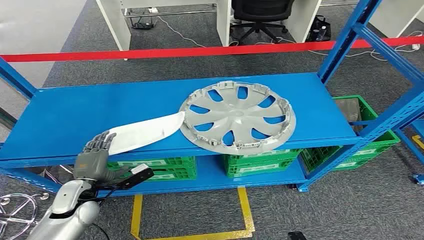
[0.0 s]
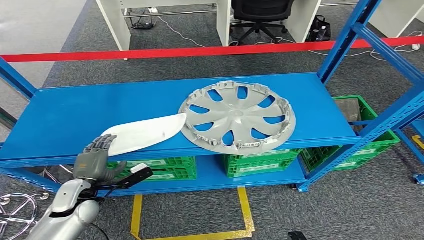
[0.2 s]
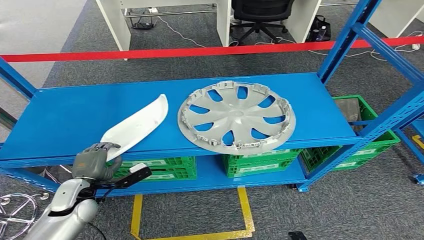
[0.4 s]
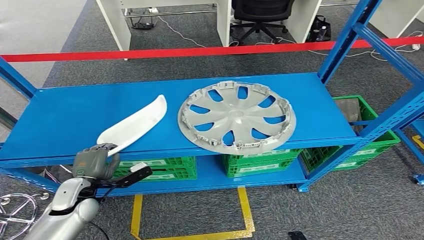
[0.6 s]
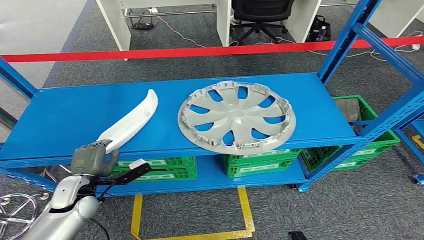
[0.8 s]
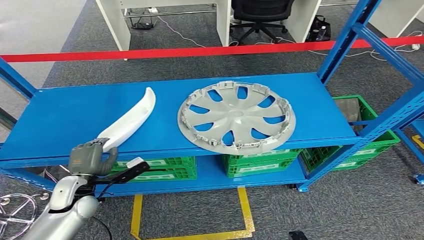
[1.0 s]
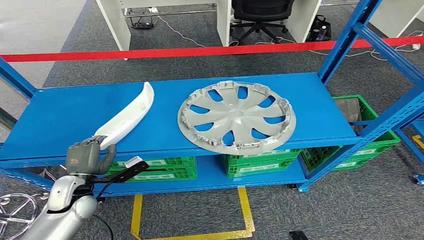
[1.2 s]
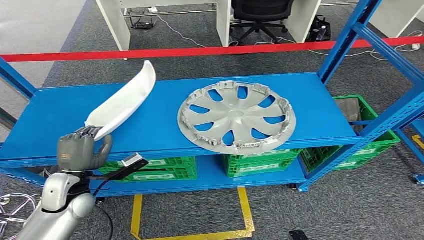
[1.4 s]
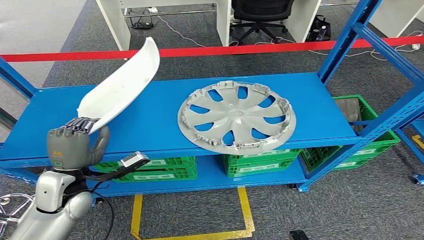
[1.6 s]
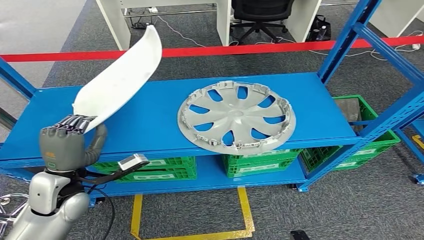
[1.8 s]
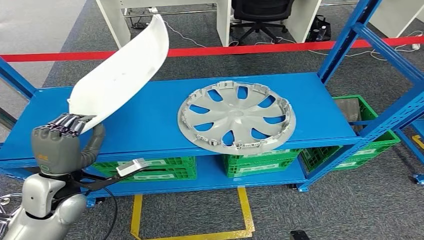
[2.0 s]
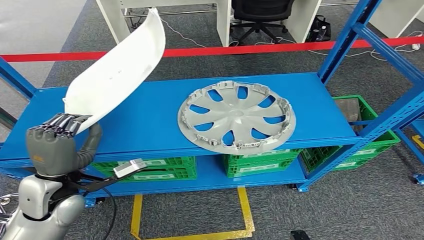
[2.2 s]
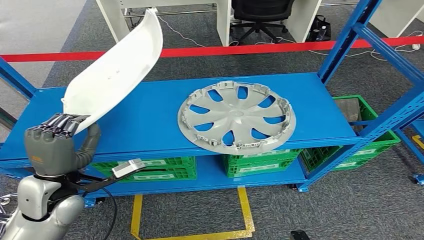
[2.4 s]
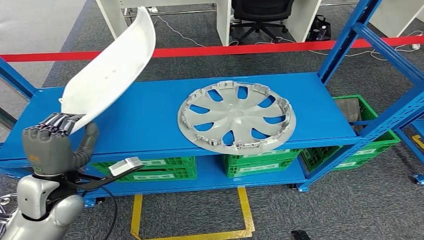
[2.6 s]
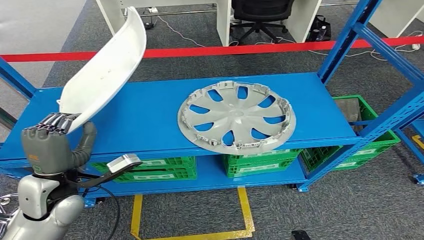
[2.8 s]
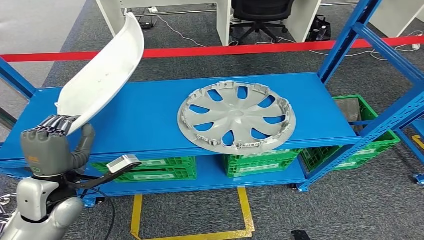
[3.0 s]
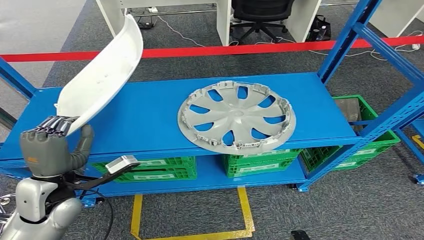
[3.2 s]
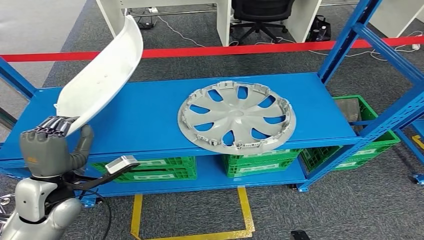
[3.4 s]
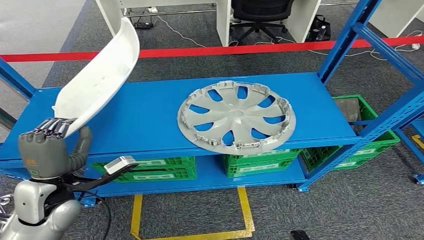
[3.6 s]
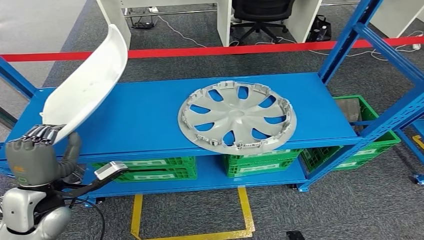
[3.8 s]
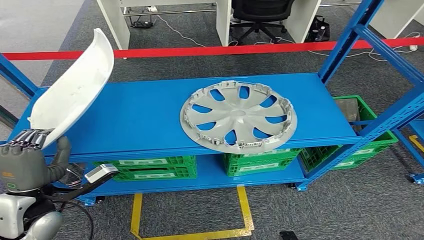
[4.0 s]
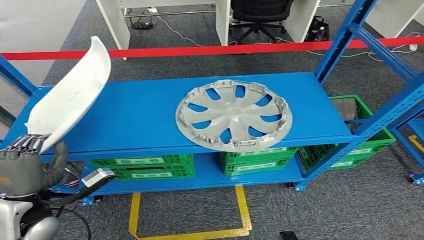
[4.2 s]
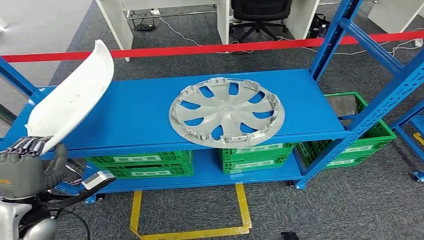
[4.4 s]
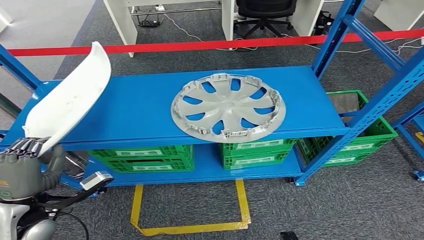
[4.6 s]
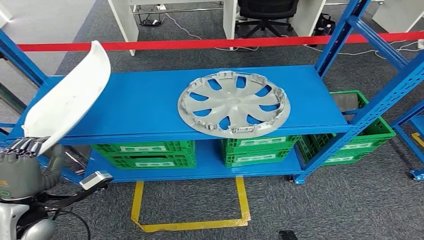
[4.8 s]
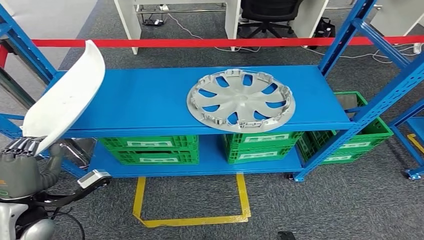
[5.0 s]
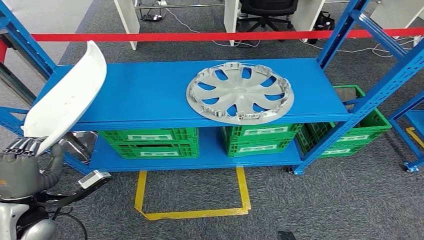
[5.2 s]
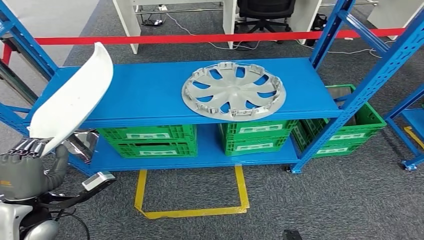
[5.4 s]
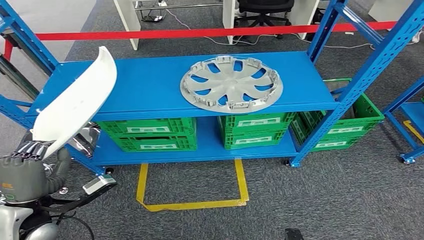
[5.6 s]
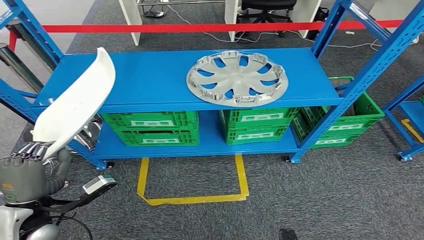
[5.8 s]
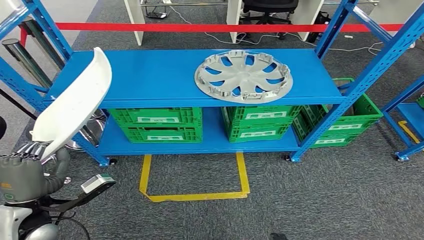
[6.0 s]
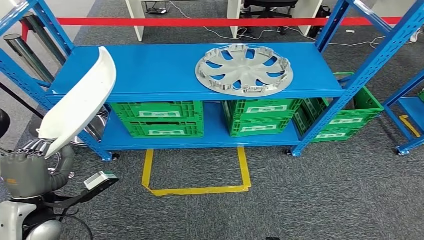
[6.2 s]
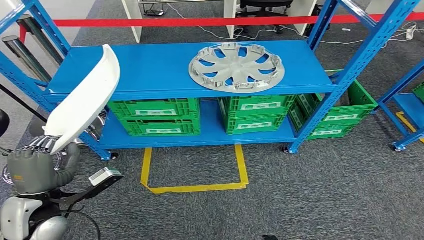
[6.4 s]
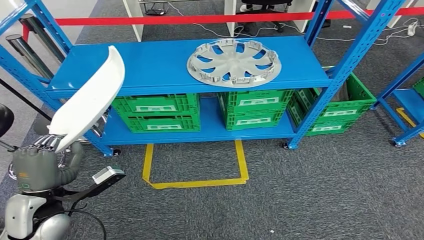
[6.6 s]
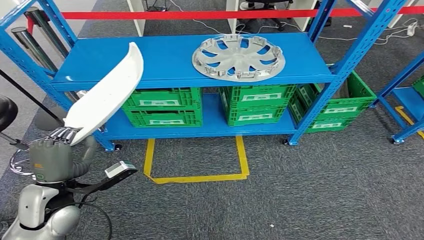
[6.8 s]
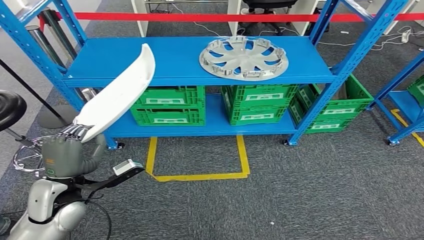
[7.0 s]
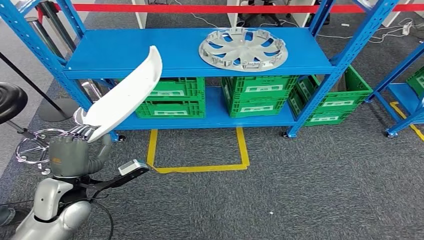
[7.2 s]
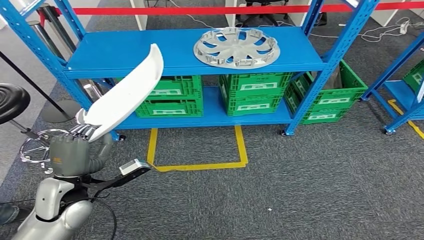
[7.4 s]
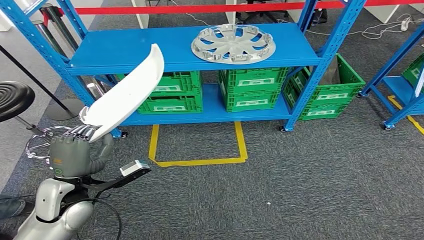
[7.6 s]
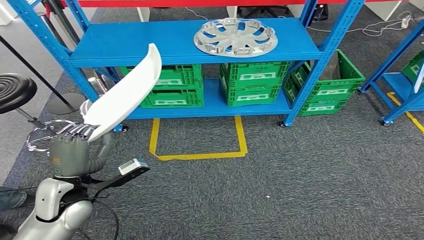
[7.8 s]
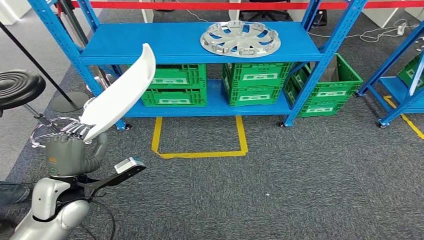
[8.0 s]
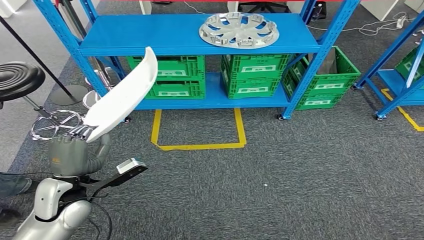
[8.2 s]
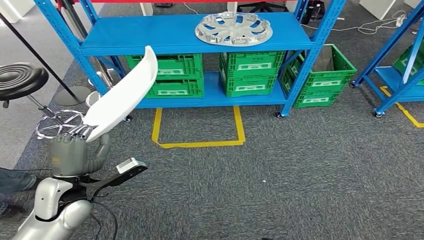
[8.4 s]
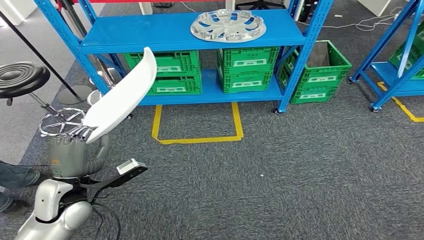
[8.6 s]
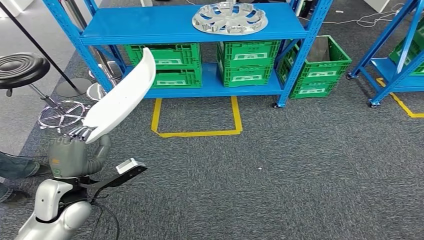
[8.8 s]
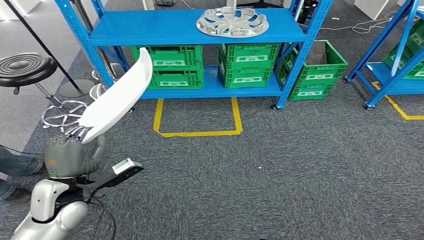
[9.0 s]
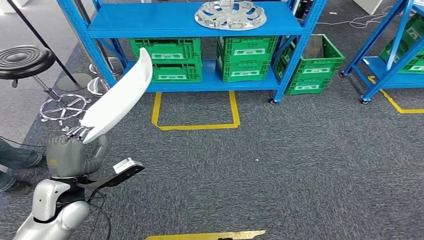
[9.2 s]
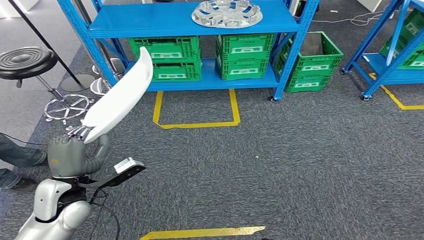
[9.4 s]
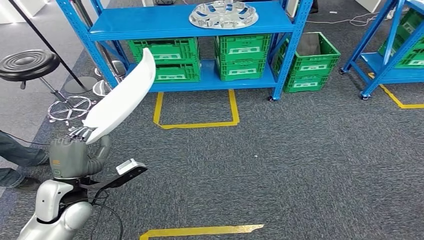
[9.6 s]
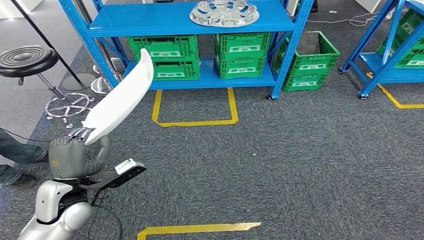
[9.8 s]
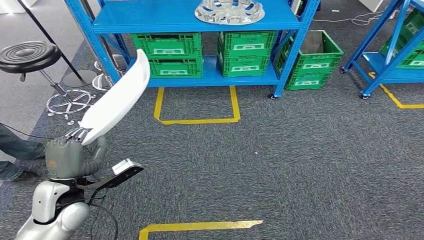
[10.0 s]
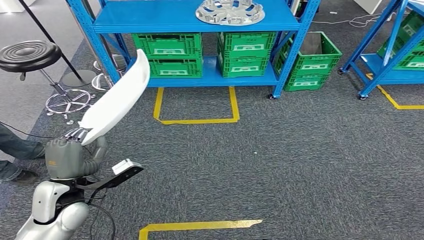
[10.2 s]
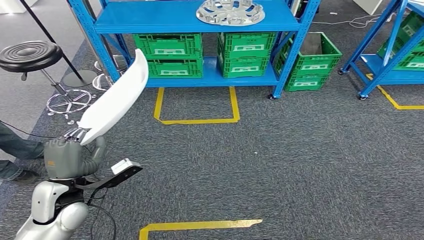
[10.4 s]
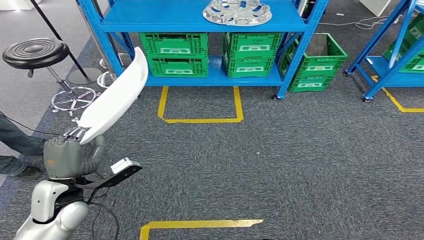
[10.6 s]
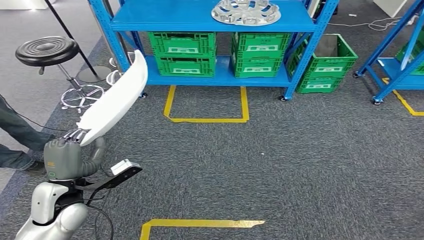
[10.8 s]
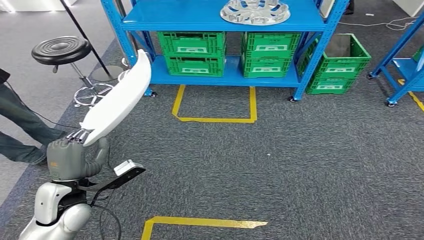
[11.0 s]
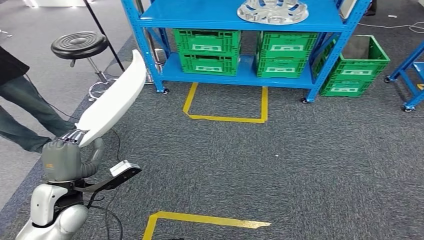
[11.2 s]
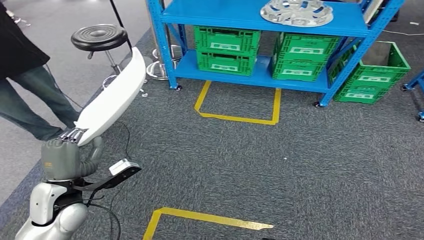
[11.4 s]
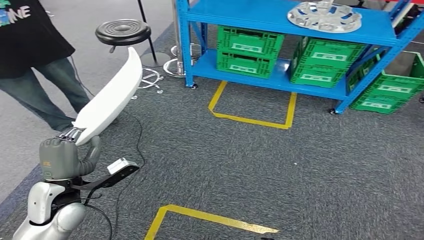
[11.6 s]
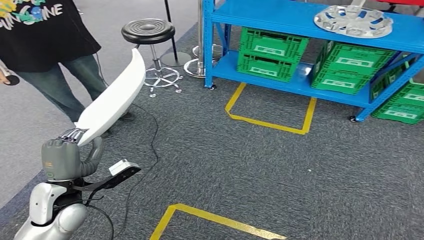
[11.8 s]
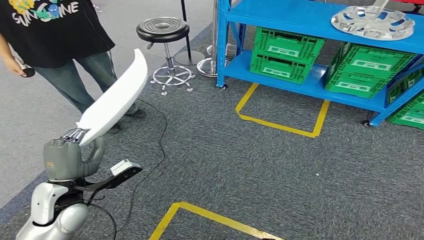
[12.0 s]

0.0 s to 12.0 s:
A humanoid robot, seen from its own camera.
Step, 0.0 to 3.4 s: Take small components from the rack.
1.6 to 3.0 s: The left hand shifts by some 5 cm.

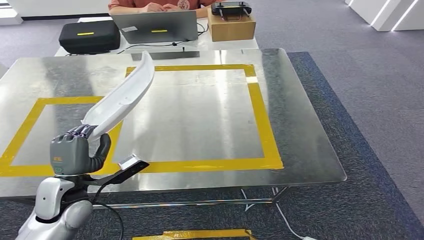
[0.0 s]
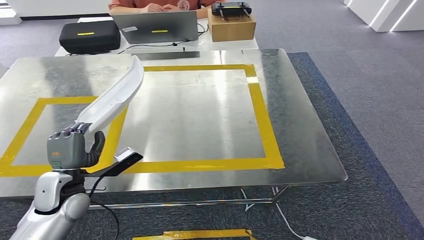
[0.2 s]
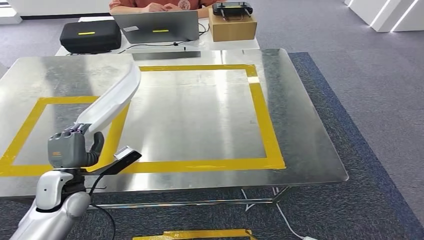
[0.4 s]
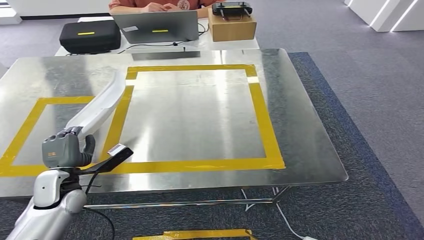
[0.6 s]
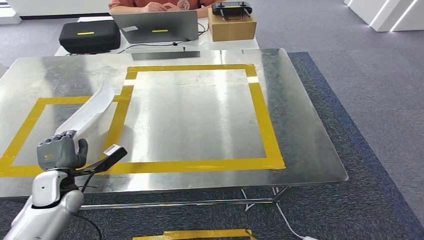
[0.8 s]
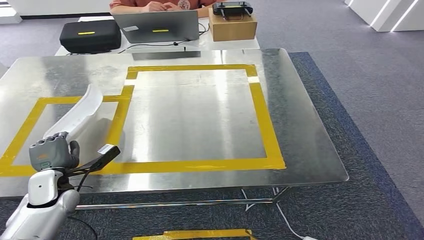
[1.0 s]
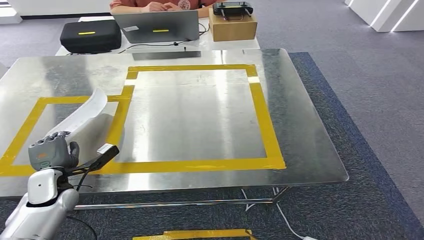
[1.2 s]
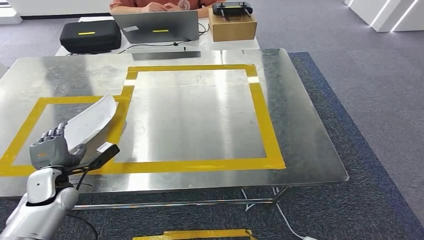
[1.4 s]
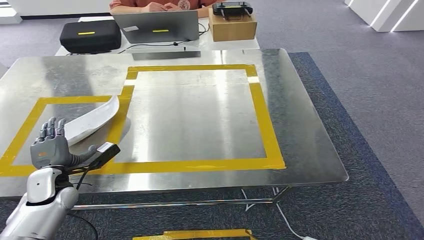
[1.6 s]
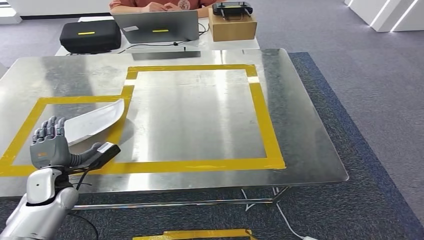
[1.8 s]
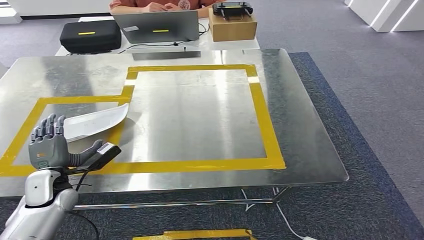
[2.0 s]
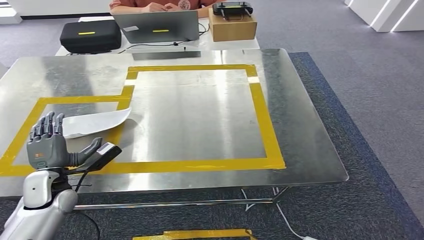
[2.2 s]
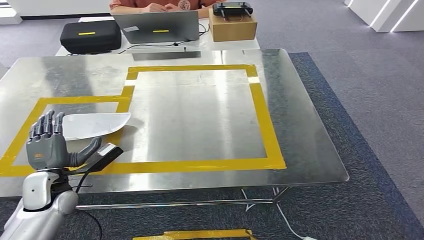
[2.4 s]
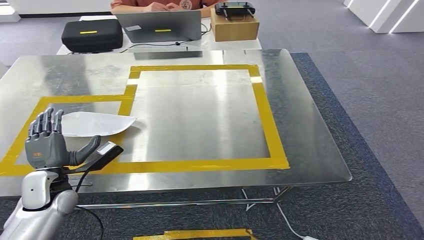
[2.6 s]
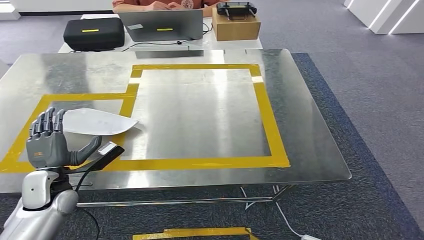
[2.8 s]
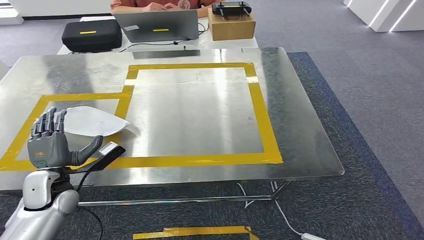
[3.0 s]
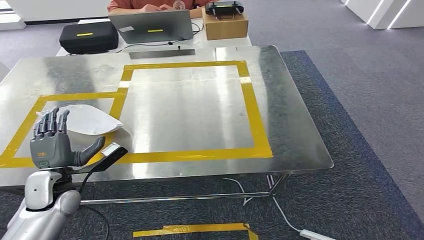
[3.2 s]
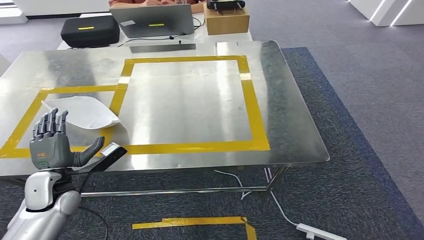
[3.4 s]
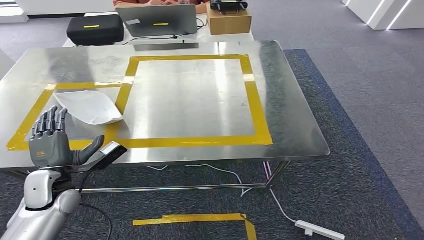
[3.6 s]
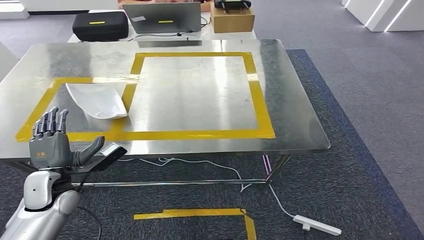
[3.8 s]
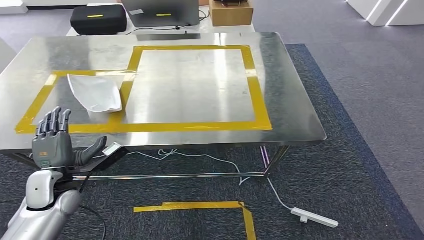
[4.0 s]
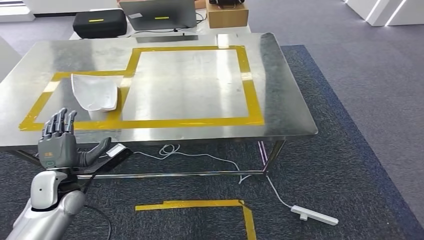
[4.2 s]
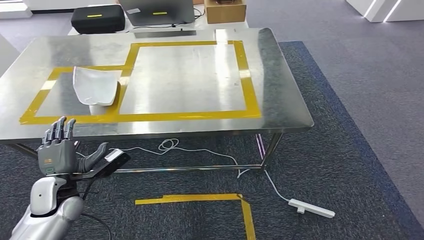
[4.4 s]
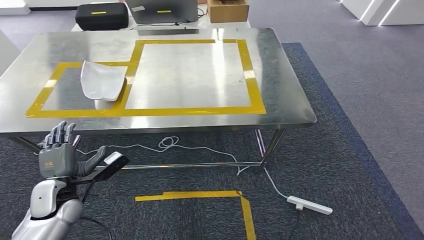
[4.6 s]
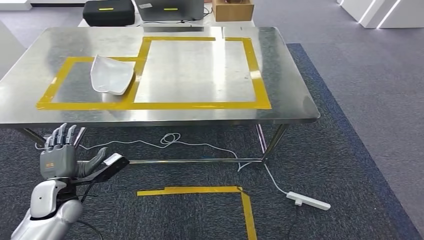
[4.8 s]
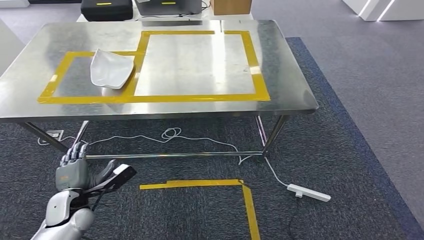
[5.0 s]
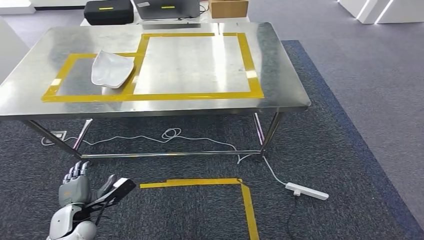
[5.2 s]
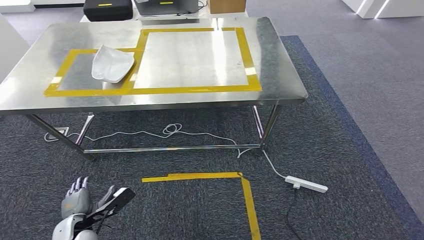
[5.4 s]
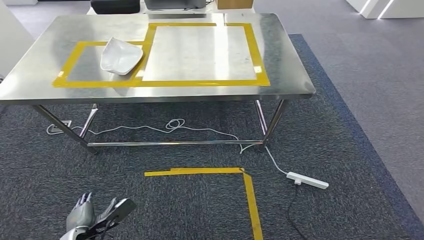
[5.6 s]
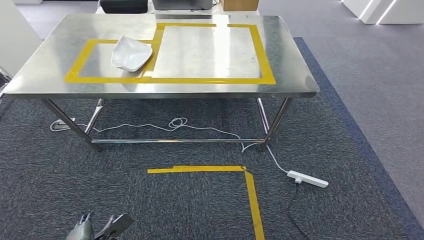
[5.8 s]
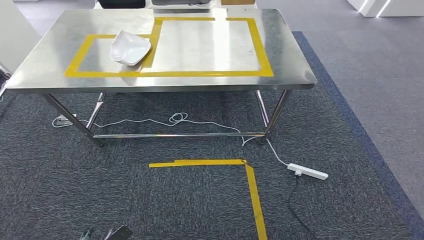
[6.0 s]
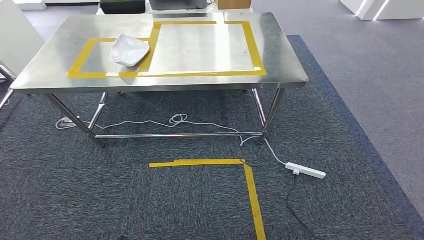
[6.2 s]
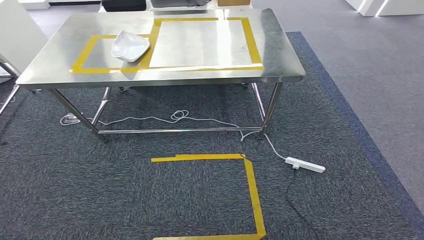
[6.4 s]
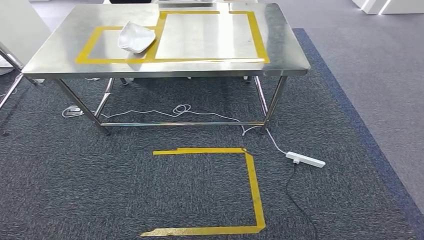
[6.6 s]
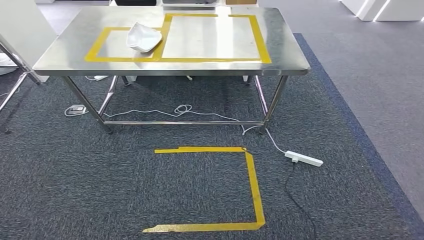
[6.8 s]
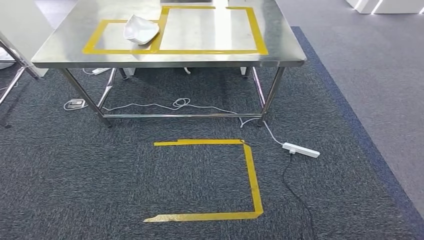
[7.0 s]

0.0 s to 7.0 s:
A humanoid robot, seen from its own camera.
Step, 0.4 to 3.2 s: Insert the small parts into the corresponding holes on the workbench.
0.0 to 1.4 s: The left hand goes roughly 10 cm to the left, downward and forward.
1.4 to 2.8 s: The hands make only small movements.
